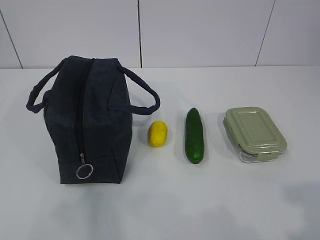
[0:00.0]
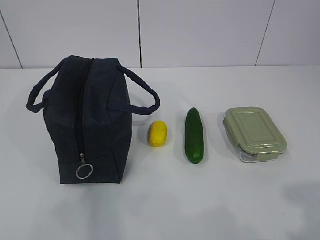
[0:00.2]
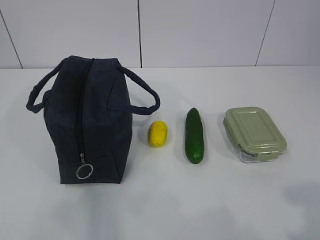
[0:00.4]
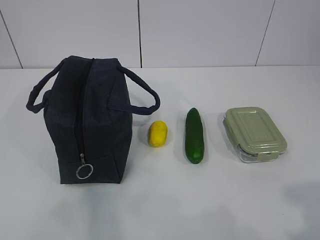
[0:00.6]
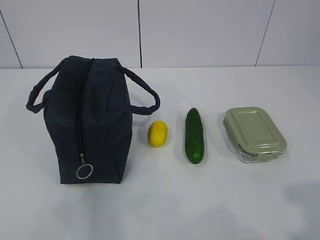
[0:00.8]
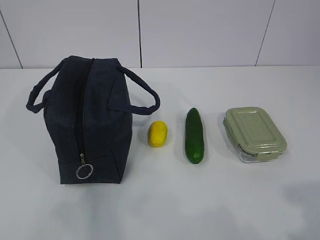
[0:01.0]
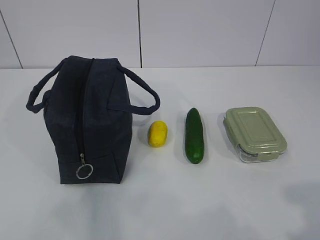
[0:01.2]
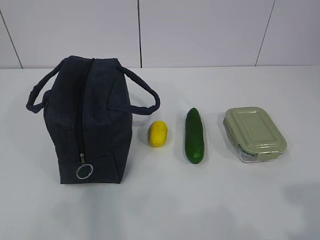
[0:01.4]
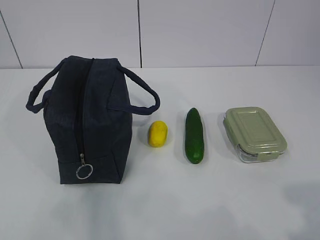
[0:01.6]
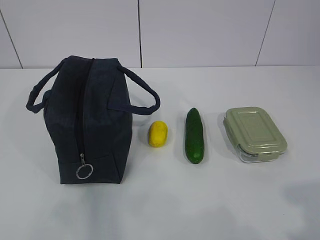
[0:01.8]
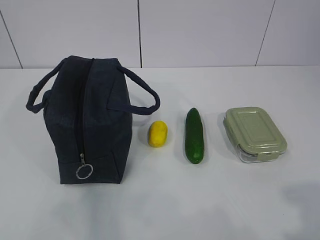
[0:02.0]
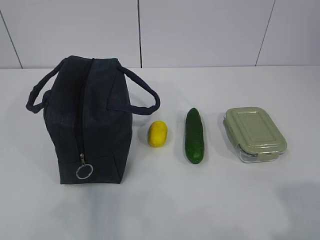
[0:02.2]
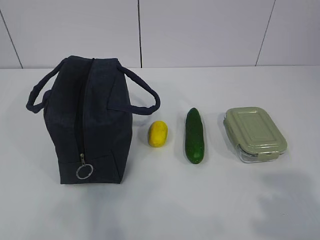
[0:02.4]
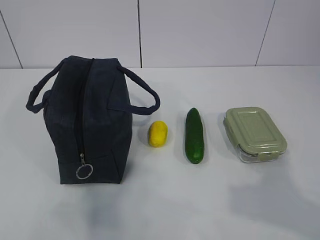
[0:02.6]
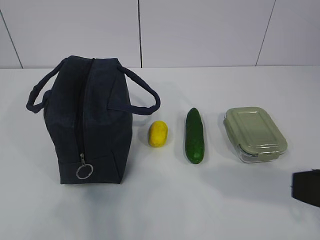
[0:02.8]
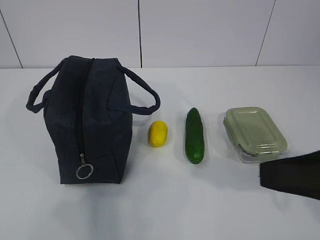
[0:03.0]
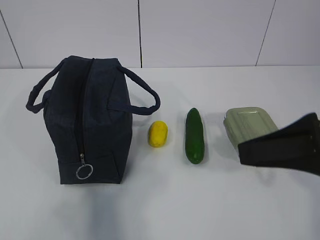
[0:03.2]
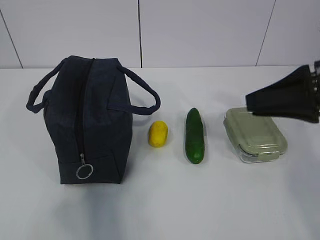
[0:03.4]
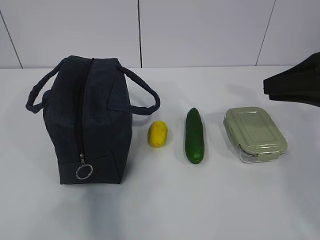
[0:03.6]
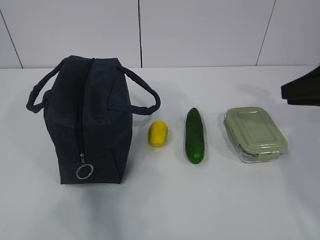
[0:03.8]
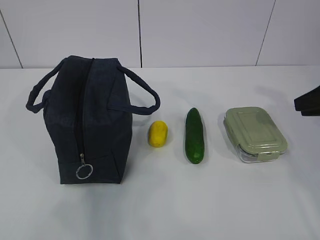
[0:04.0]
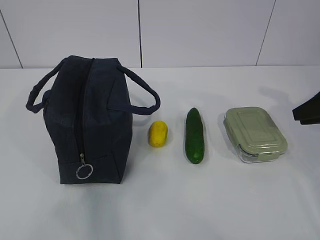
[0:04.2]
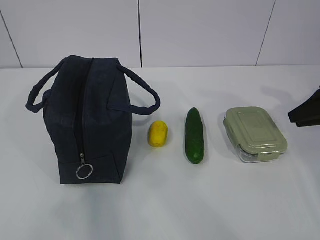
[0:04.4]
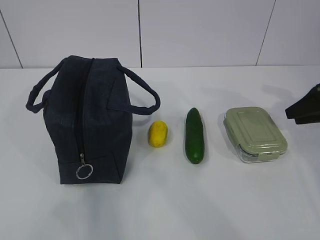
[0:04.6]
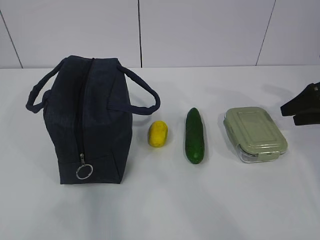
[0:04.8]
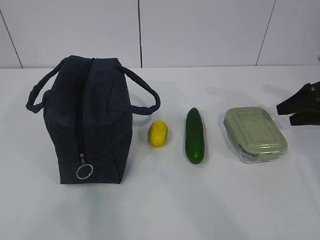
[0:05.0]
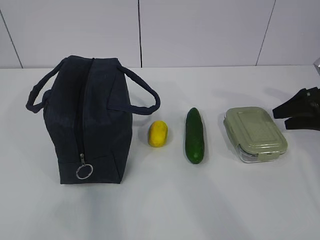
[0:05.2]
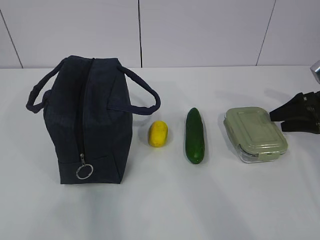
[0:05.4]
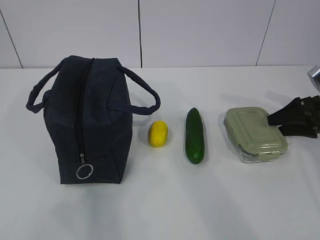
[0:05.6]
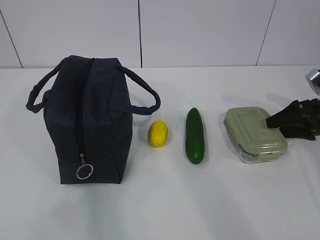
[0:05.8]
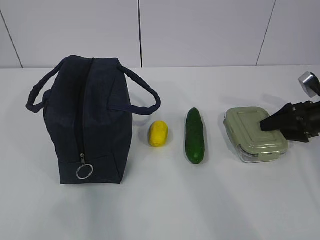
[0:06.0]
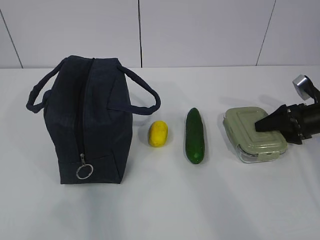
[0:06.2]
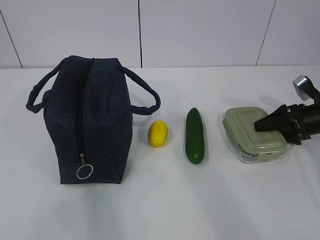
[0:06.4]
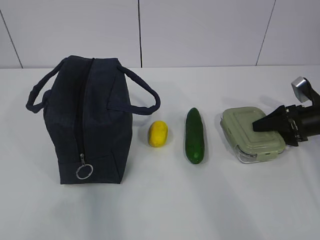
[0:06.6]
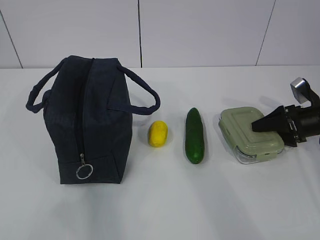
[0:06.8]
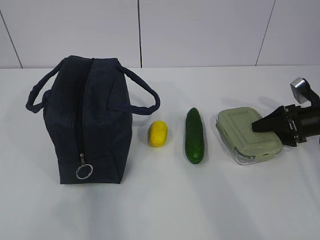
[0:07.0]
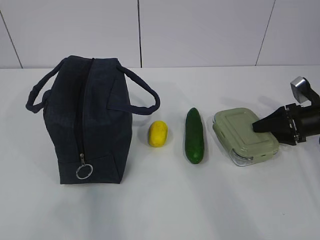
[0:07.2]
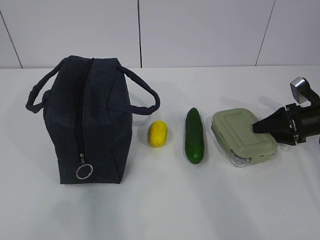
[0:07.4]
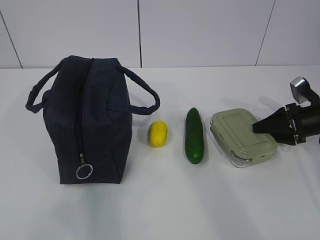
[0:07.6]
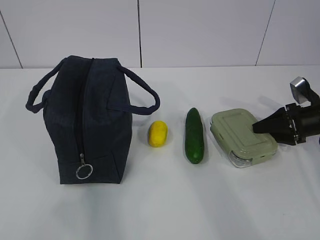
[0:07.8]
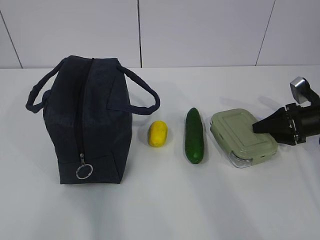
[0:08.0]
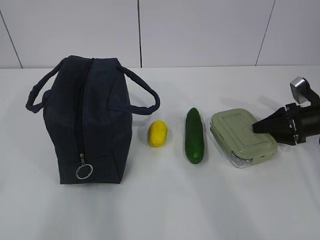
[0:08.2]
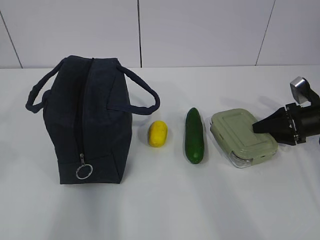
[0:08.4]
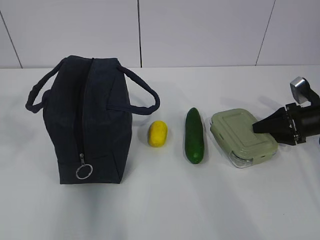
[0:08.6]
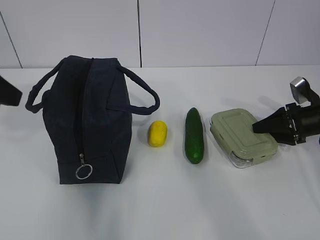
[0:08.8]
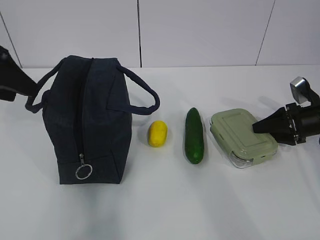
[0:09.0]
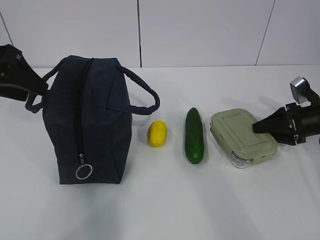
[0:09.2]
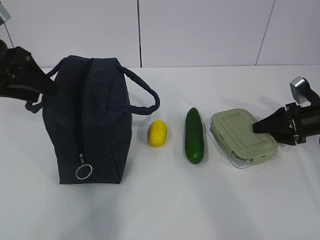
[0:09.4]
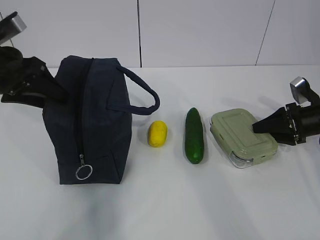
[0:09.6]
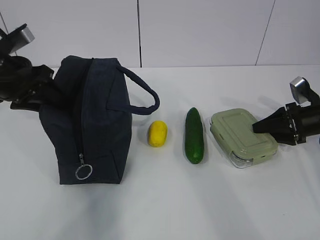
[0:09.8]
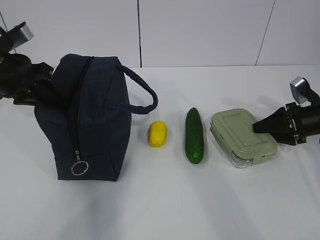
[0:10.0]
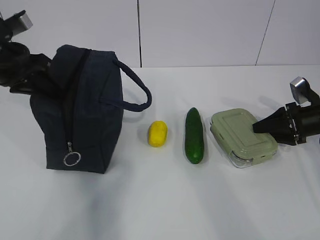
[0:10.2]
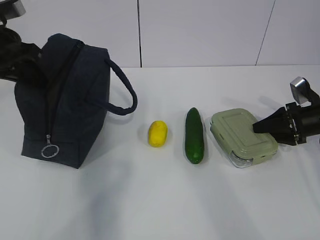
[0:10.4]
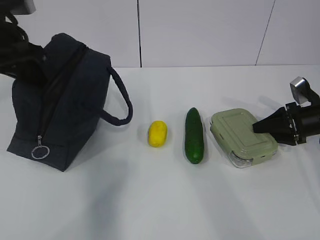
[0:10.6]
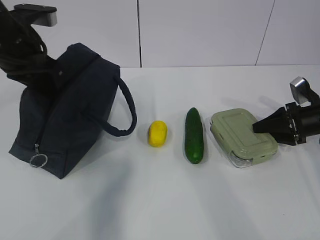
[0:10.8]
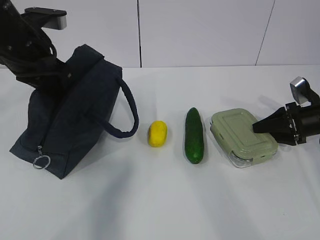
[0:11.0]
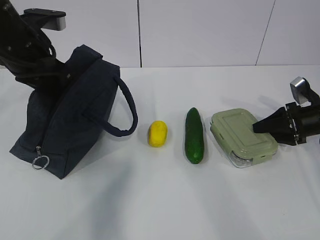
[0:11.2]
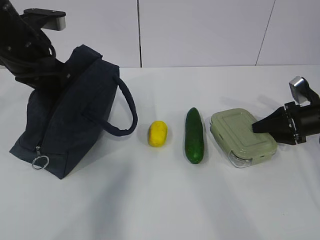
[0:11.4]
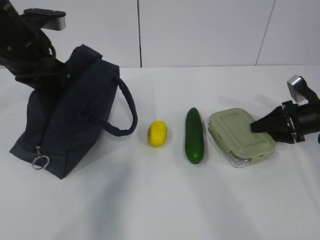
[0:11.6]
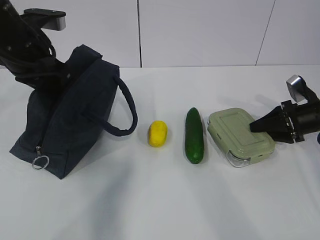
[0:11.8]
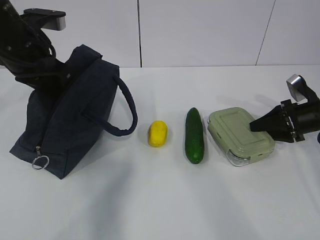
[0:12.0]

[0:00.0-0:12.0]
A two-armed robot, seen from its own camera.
Step, 0:00.0 to 0:06.2: Grab the lunch box with your right hand.
0:01.6 to 0:03.0: The right gripper heads forward and to the left, covering about 15 cm.
0:03.0 to 0:04.4: The right gripper moves forward, to the right and downward, roughly 30 cm.
0:04.4 to 0:06.0: The right gripper moves downward, about 10 cm, and opens its fingers.
0:06.0 to 0:07.6: The grippers stay close to where they were, moving slightly.
0:07.6 to 0:09.0: The left gripper travels forward by about 30 cm, and opens up.
0:09.0 to 0:10.4: The left gripper travels forward by approximately 5 cm, and closes.
0:10.4 to 0:12.0: The left gripper is displaced to the right by some 5 cm.

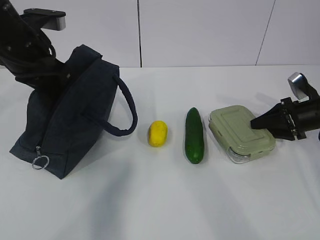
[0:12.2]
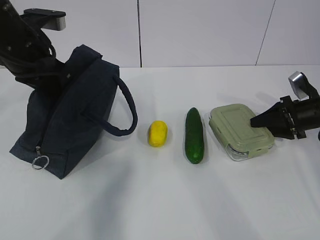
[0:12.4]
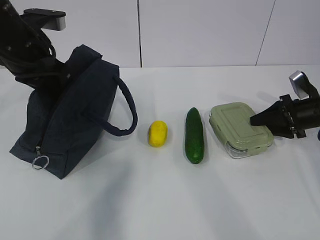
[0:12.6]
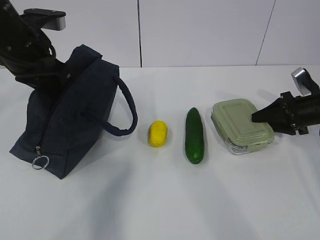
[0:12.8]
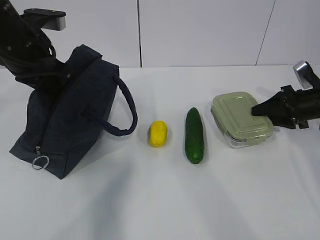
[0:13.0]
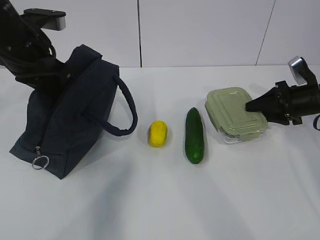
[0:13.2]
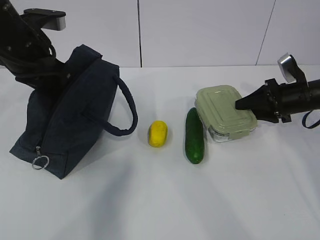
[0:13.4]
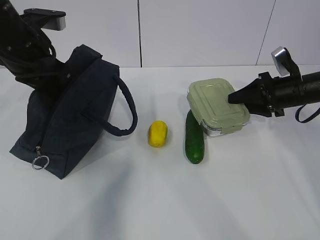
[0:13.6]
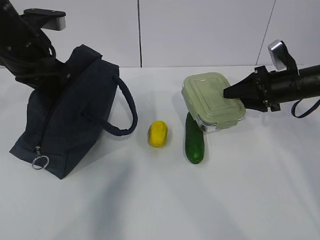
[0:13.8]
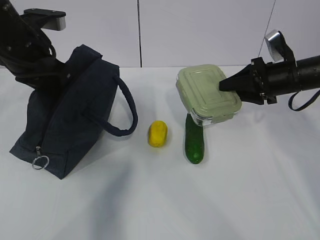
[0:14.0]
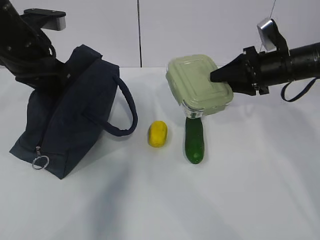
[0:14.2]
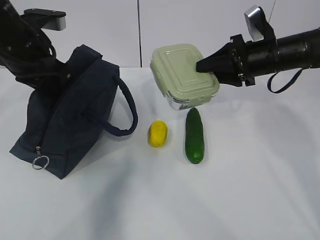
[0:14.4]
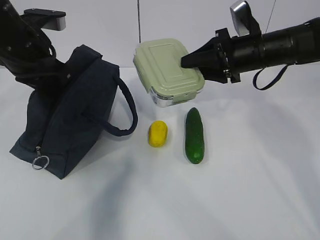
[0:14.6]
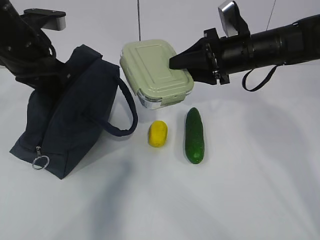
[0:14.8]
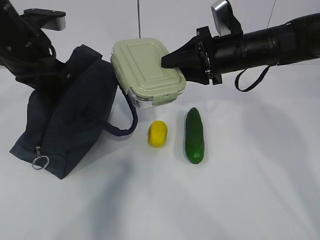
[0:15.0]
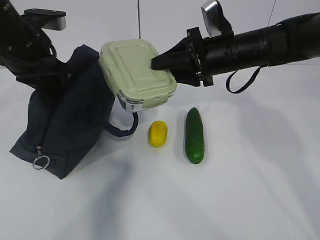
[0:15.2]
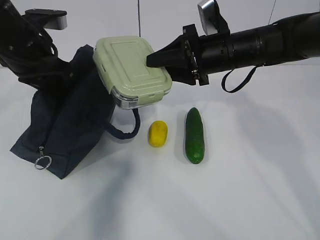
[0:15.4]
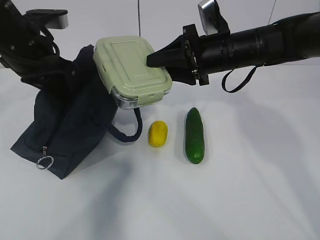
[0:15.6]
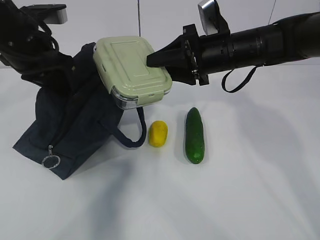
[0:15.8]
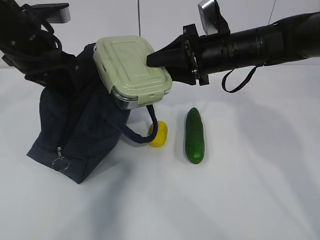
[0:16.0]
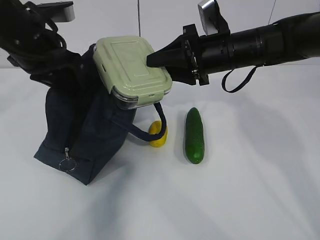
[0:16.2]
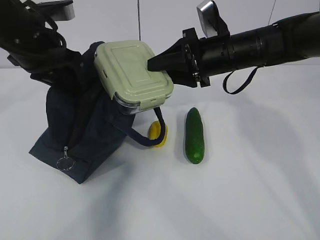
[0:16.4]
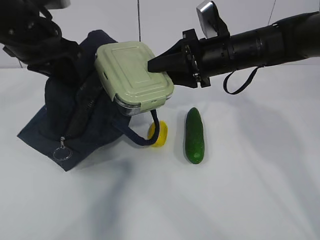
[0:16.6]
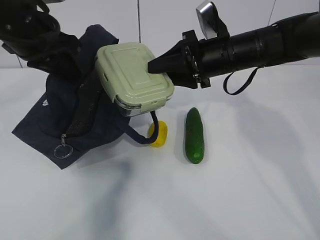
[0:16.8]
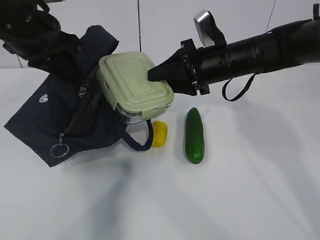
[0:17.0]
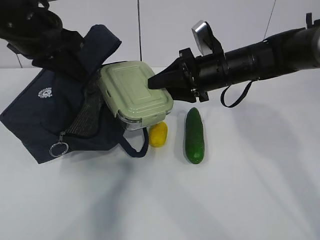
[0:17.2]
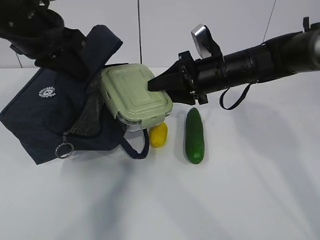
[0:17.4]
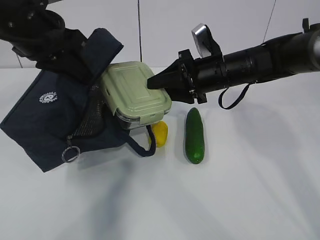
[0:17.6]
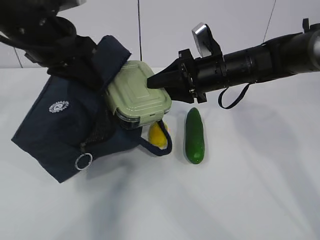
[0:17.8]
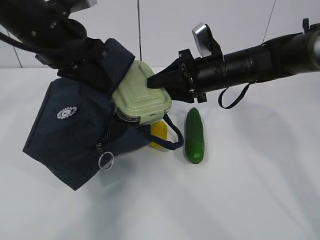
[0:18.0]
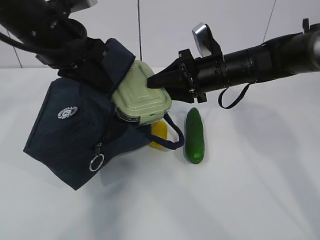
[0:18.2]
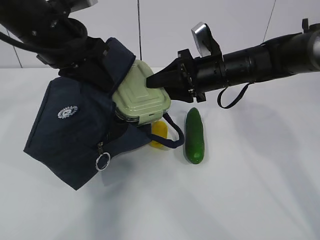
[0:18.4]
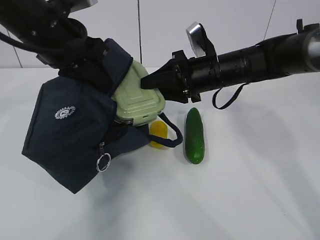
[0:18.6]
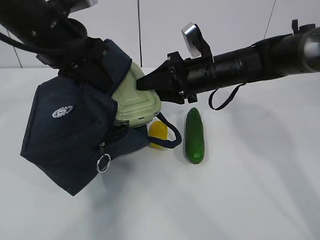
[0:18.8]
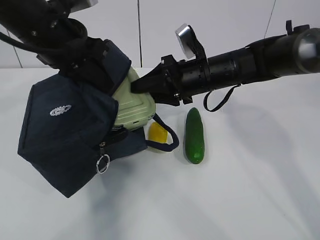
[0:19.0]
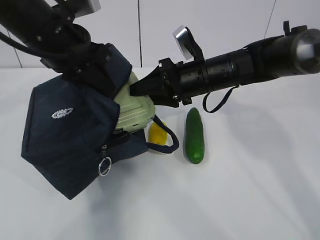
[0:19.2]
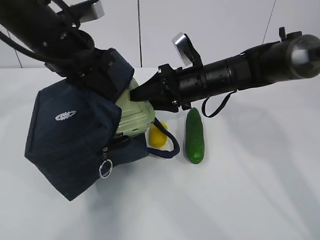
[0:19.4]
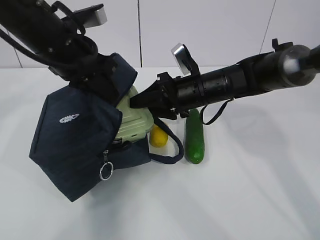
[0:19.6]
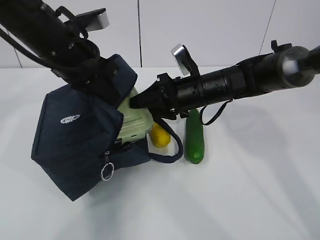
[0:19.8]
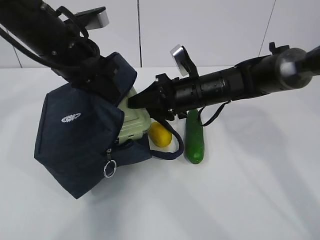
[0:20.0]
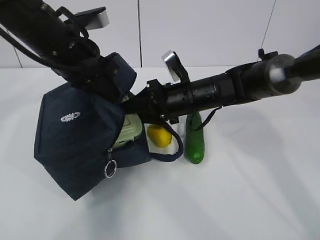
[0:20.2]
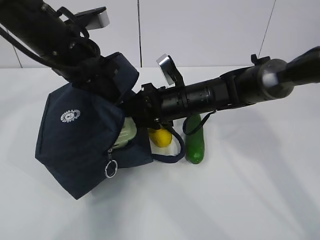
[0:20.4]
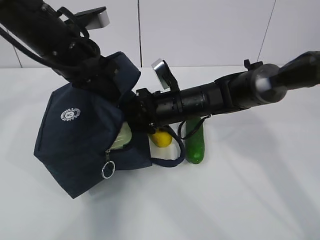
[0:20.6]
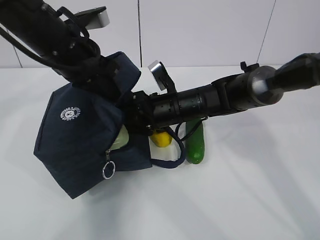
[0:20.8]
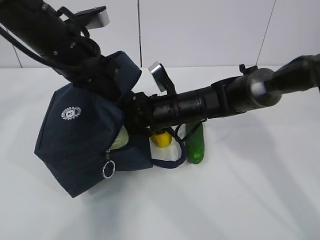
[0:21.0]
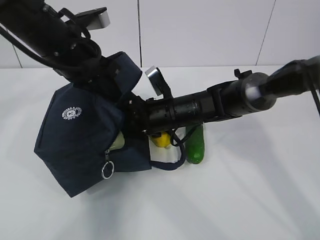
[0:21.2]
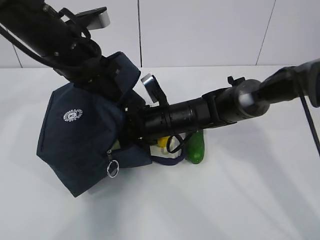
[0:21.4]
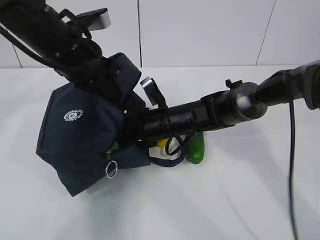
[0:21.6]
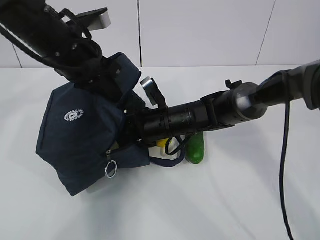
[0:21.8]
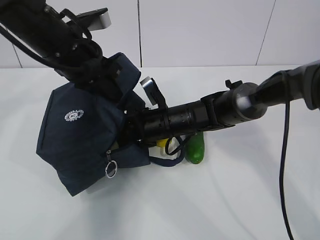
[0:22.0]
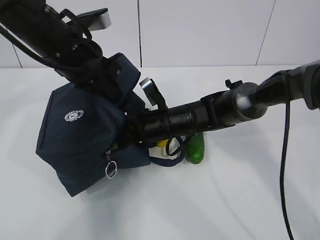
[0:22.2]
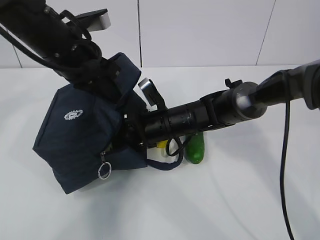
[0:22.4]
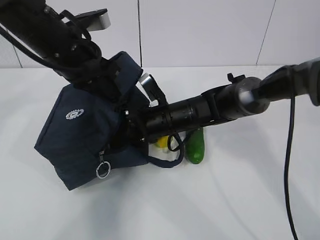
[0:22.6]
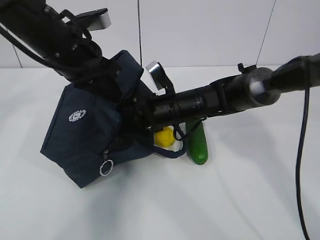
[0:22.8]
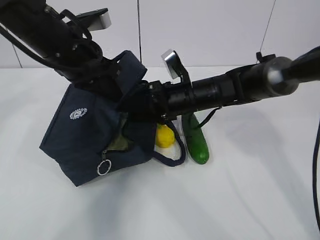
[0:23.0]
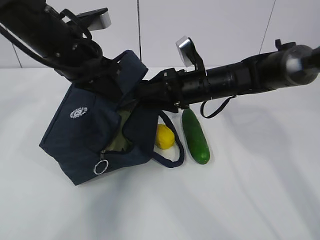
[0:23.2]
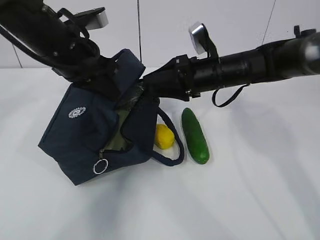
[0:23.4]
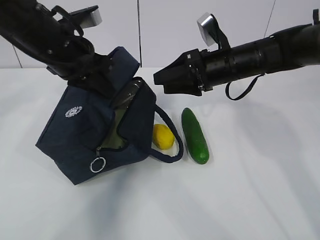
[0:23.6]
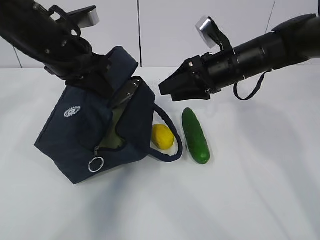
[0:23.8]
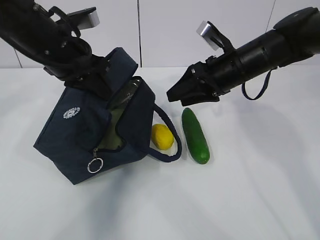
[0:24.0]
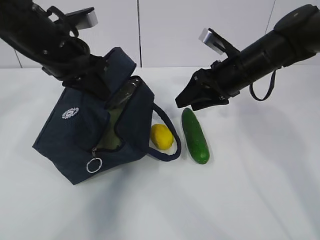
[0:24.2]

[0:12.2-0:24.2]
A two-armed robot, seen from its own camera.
Step, 0:13.6 to 0:19.2: Place it into the bag with your right hand.
Step, 0:19.4 to 0:21.6: Grab the cucumber with your right hand.
Step, 0:21.8 to 0:24.0: Place it into the bag with your right hand.
0:12.2 to 0:13.8: The right gripper is displaced to the left and upward by some 10 cm.
0:13.8 to 0:15.2: The right gripper travels to the left and upward by approximately 15 cm.
0:15.2 to 0:16.6: There are only small adjustments of the grippers.
0:18.2 to 0:19.8: The right gripper shifts by about 5 cm.
0:19.8 to 0:21.2: The right gripper is displaced to the left by about 5 cm.
0:21.2 to 0:22.6: The grippers stay close to where they were, moving slightly.
0:22.6 to 0:24.2: The right gripper heads to the right and upward, covering some 15 cm.
